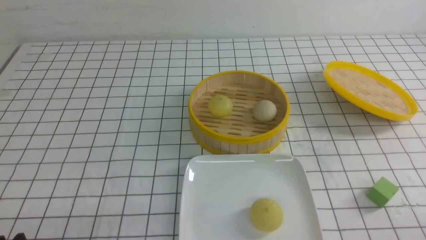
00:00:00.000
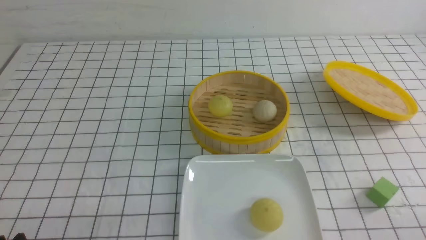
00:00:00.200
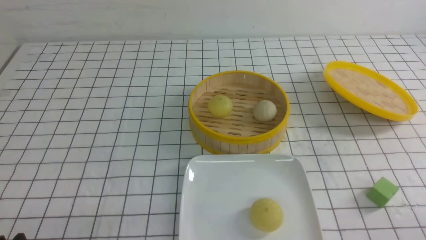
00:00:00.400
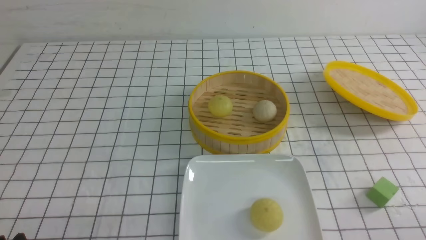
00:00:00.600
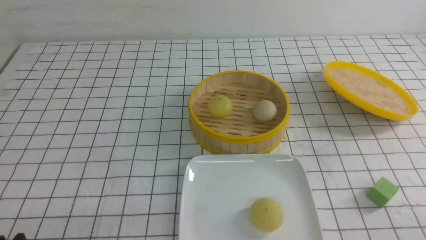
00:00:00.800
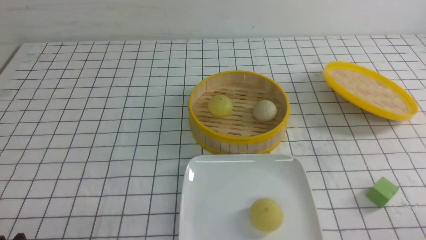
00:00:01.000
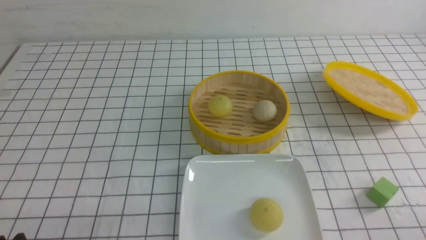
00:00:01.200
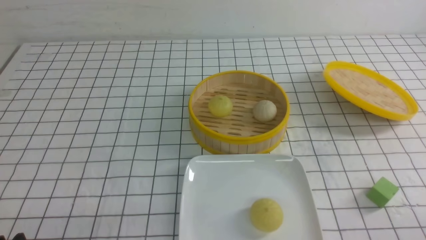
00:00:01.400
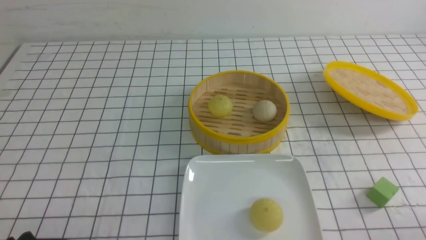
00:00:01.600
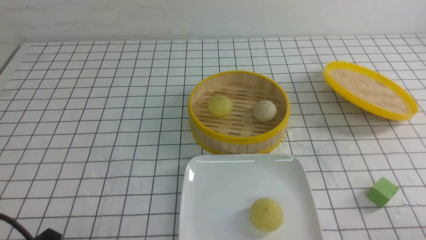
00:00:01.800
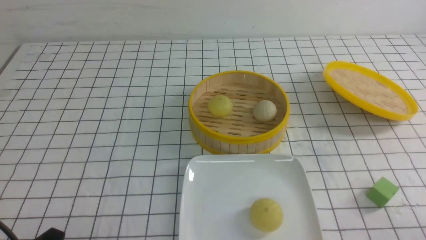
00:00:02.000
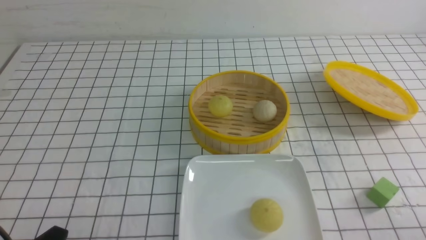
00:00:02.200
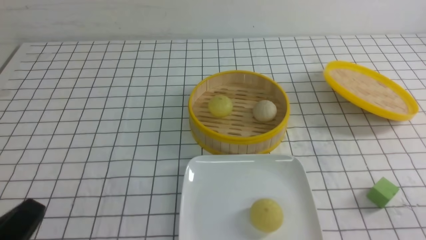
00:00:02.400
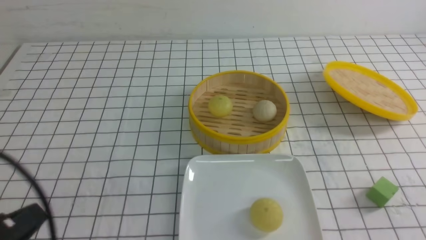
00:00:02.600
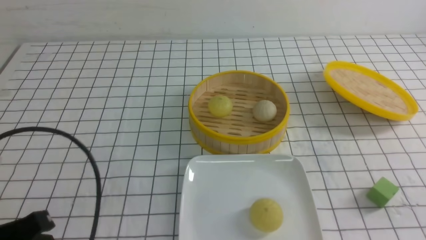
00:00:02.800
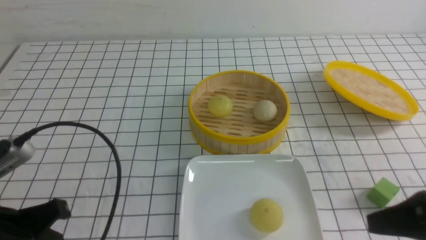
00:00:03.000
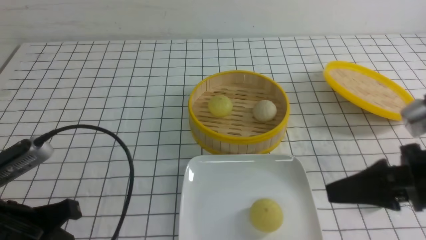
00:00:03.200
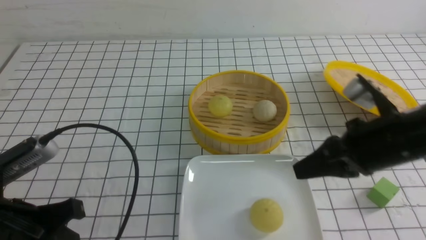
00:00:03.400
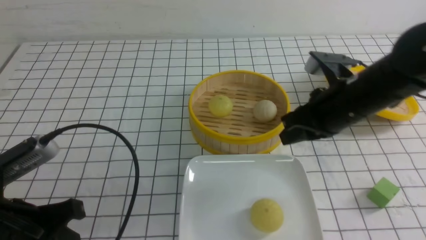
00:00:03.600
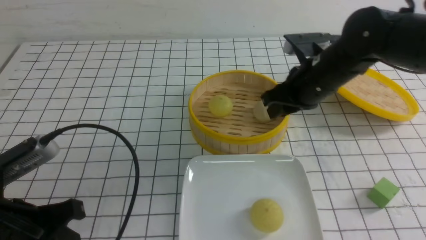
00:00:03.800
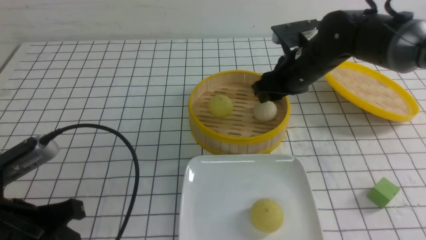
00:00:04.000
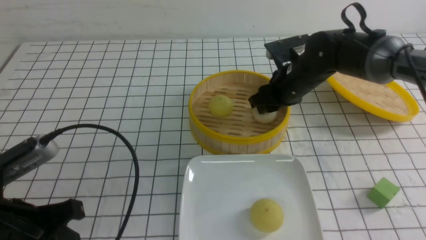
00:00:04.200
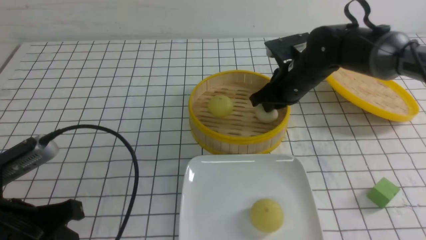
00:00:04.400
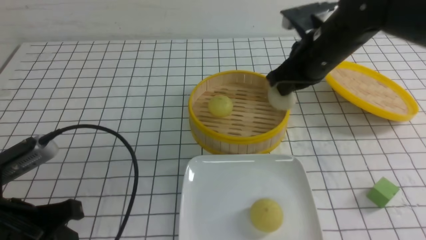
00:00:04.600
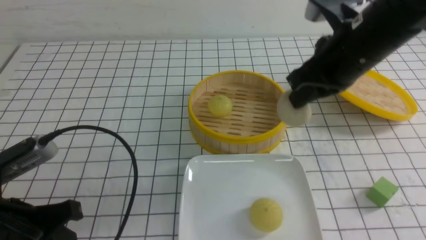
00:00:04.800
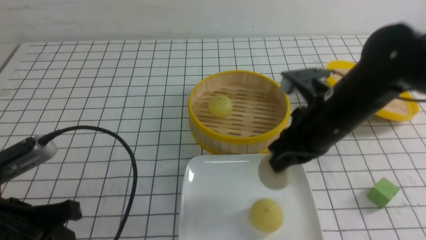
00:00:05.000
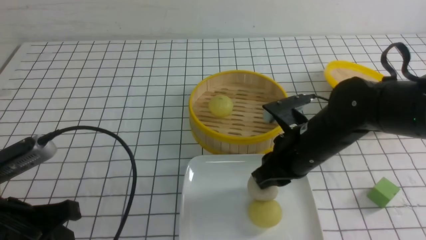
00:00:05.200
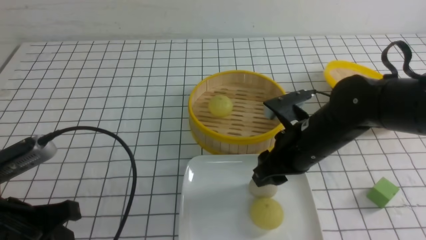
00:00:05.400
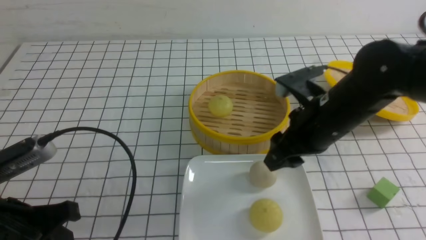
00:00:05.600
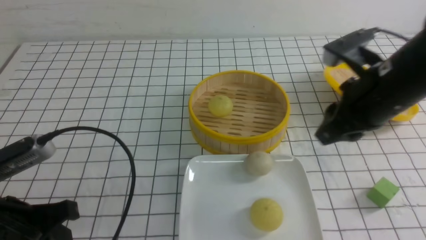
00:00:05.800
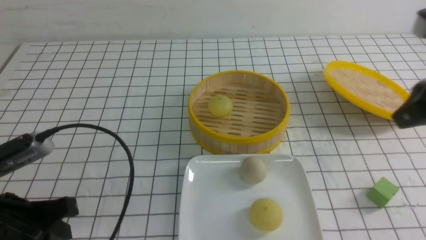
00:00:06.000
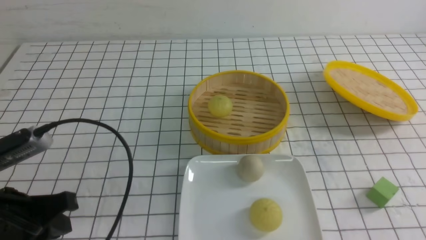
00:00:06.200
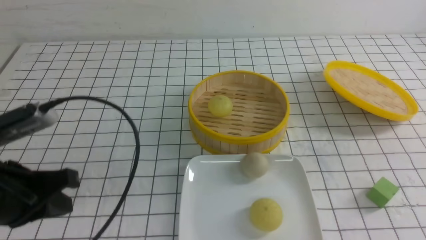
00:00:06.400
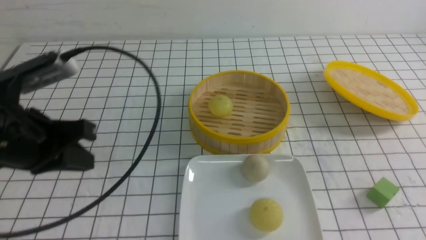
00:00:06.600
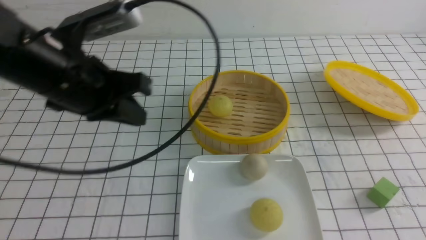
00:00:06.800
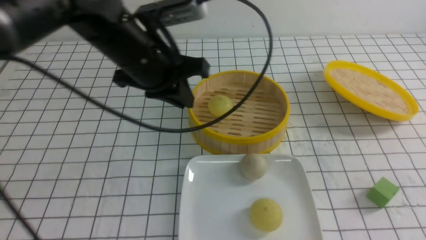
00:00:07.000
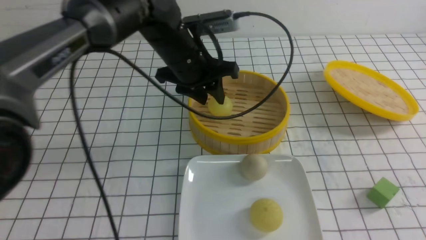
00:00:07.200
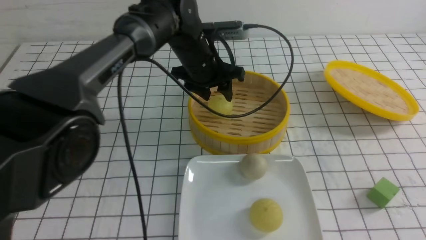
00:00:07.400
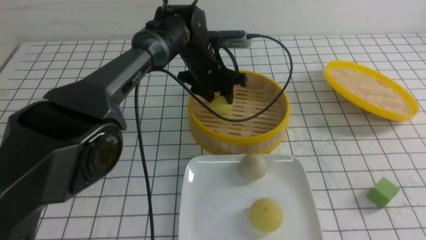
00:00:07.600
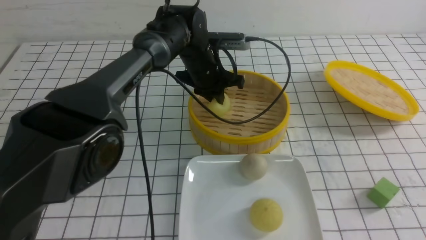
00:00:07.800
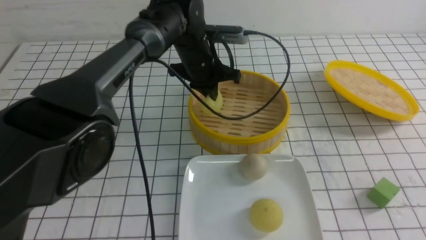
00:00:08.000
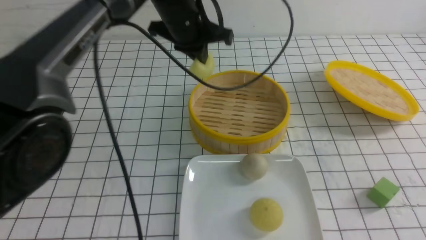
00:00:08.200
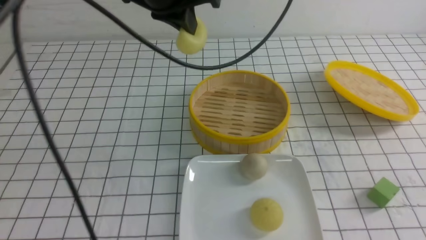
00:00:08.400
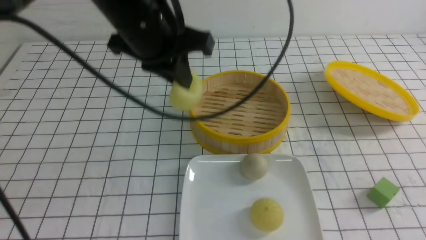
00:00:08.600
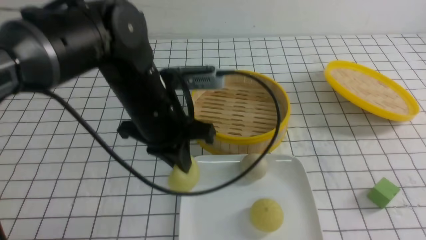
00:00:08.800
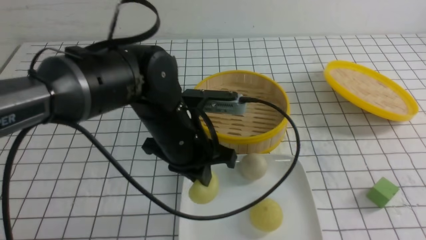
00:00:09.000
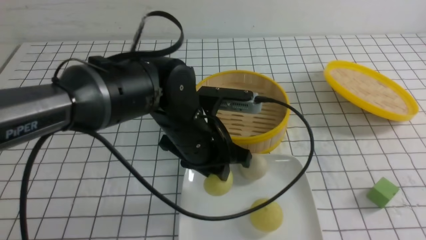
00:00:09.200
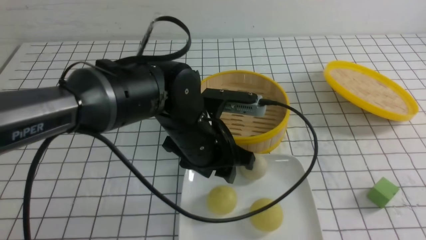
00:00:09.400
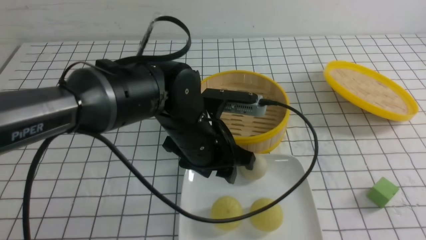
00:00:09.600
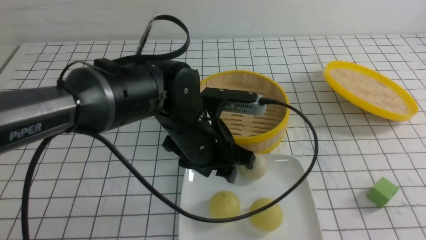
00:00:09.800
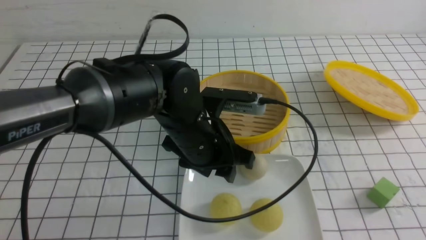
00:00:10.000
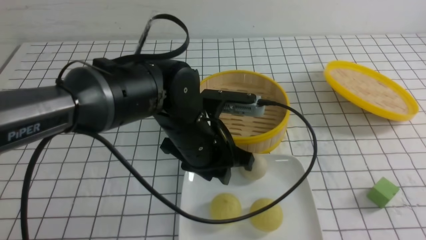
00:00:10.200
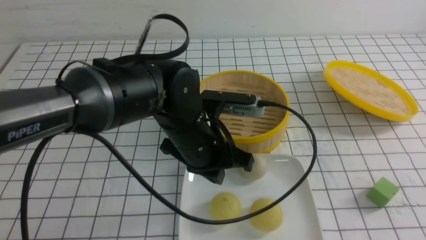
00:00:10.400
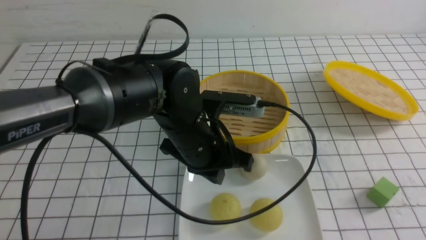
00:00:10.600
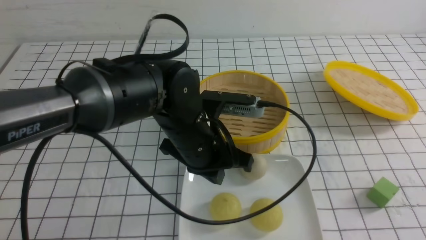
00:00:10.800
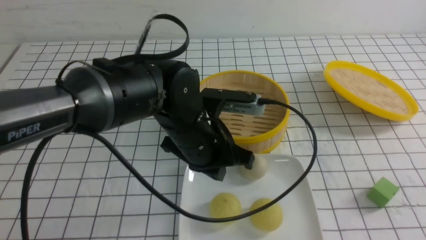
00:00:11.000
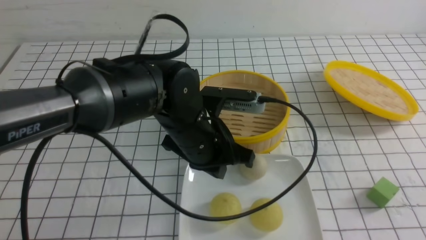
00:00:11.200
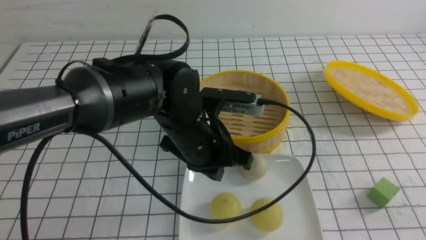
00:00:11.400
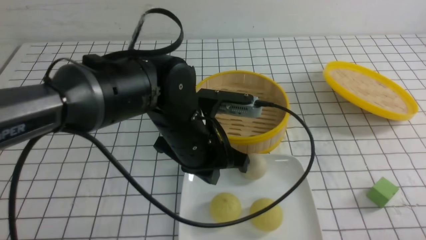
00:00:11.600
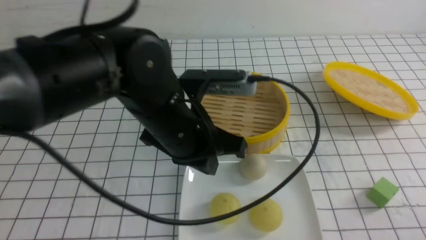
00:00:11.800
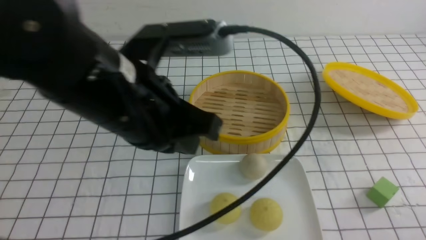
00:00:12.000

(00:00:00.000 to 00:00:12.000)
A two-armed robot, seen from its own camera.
Step, 00:00:00.000 - 00:00:04.400: use the right arm to grab the steamed stuffed bun that is closest to it.
Step, 00:00:04.800 - 00:00:05.600: use the right arm to put the steamed stuffed bun into the plate.
Step, 00:00:05.800 - 00:00:08.000: use the left arm to grab the steamed stuffed bun that is closest to it.
Step, 00:00:08.200 - 00:00:09.800: use the left arm to put the steamed stuffed bun into the plate.
00:00:01.600 - 00:00:03.000: The left gripper heads upward and forward, covering approximately 10 cm, and closes. Meanwhile the right gripper moves upward, forward and to the left, roughly 15 cm, and closes up.
00:00:03.000 - 00:00:04.400: The right gripper moves forward and to the left, approximately 30 cm, and opens, then closes again.
00:00:04.400 - 00:00:06.000: The right gripper shifts roughly 25 cm backward, to the right and upward, and opens and closes again.
00:00:06.000 - 00:00:07.600: The left gripper shifts roughly 40 cm forward and to the right, and opens up, while the right gripper travels backward and downward by approximately 15 cm.
00:00:07.600 - 00:00:09.000: The left gripper shifts roughly 20 cm backward, and closes.
00:00:09.000 - 00:00:10.400: The left gripper opens, then closes once more, while the right gripper travels backward by some 5 cm.
00:00:10.400 - 00:00:12.000: The right gripper heads downward, covering some 10 cm, while the left gripper travels upward, backward and to the left by approximately 15 cm.

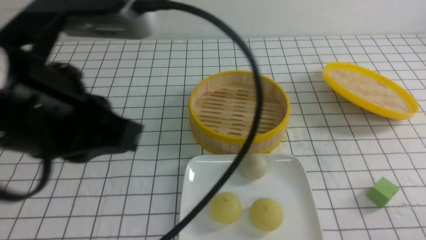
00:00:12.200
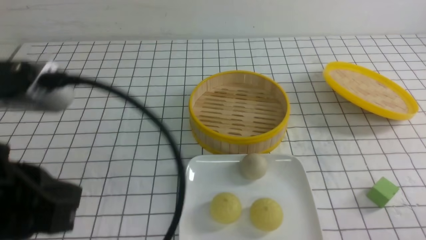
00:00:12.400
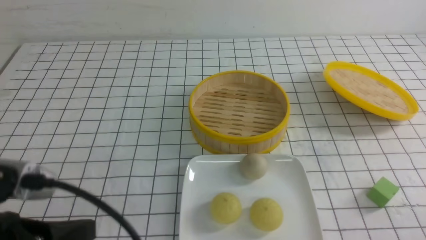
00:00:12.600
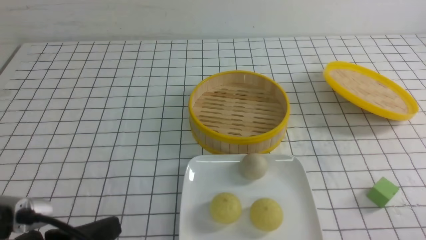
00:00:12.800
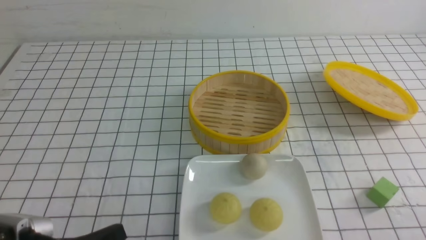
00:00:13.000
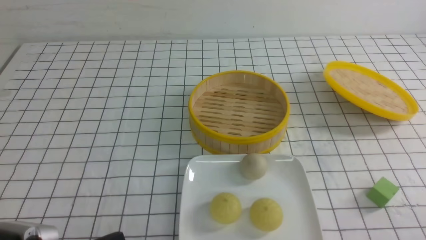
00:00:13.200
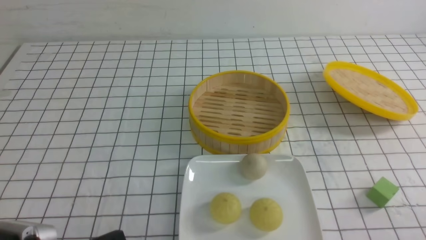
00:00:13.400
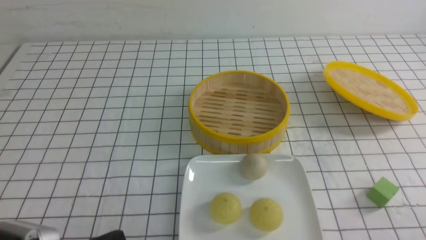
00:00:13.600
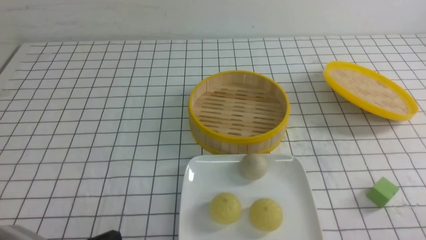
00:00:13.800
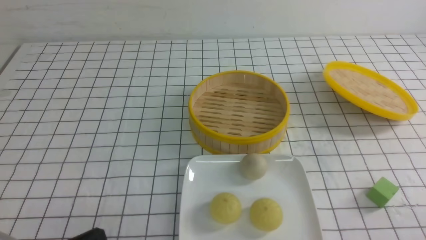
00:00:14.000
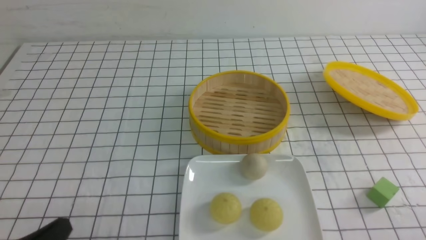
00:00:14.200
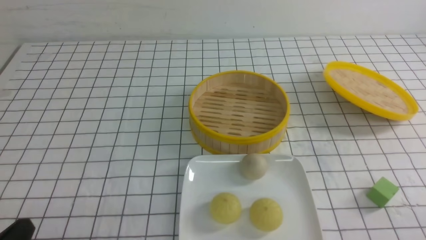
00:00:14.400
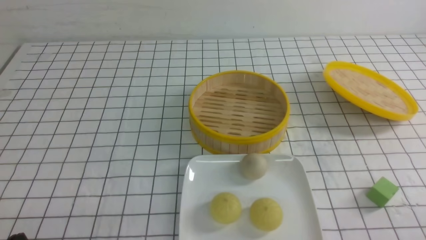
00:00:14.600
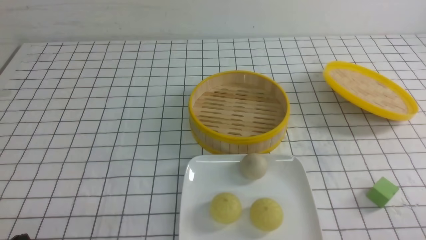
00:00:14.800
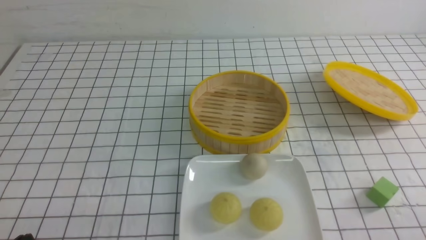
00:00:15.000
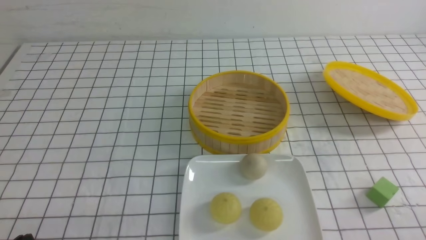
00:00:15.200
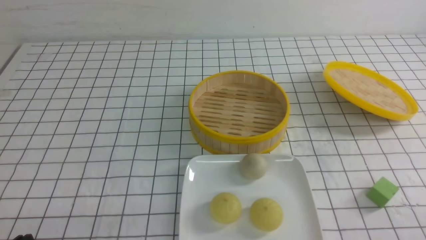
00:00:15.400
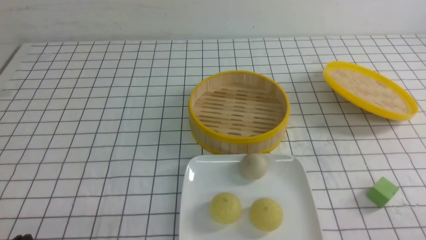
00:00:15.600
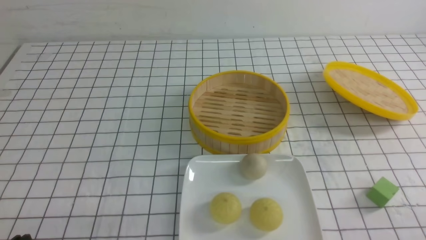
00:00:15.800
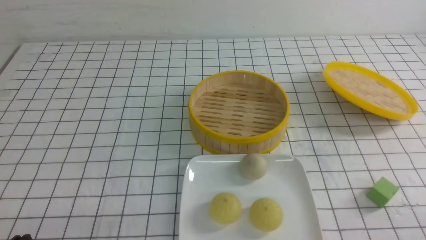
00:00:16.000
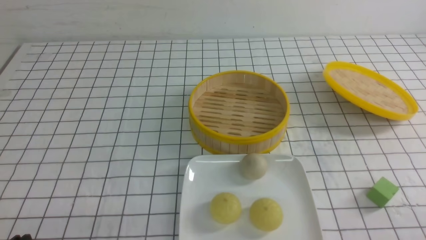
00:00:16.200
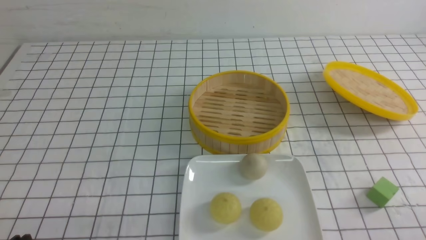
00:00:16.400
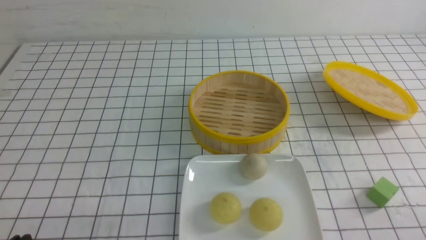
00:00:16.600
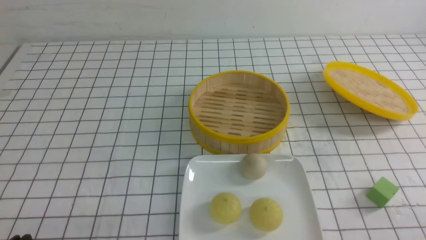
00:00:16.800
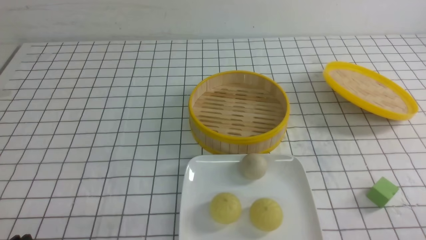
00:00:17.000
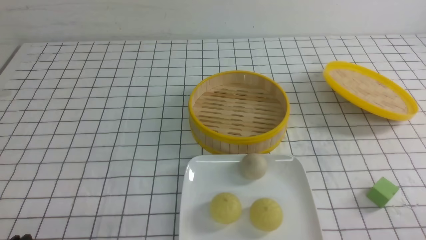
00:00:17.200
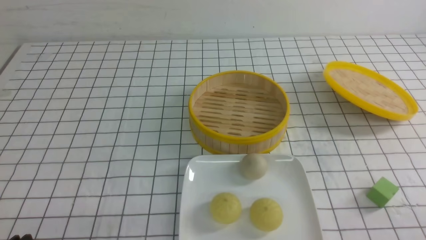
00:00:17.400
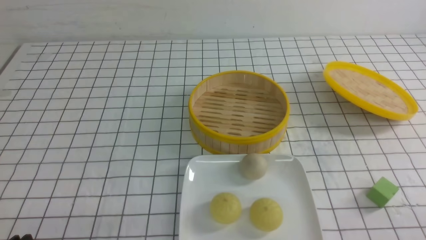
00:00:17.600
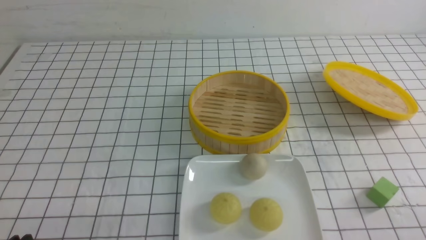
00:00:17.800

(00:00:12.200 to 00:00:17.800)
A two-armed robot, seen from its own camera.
00:00:12.200 - 00:00:13.600: The left gripper travels downward by some 20 cm.
00:00:13.600 - 00:00:15.000: The left gripper travels to the left by approximately 5 cm.
00:00:16.400 - 00:00:17.800: Both grippers stay put.
